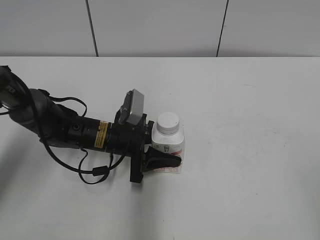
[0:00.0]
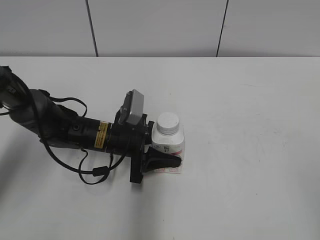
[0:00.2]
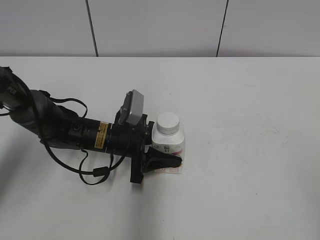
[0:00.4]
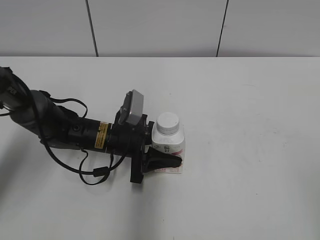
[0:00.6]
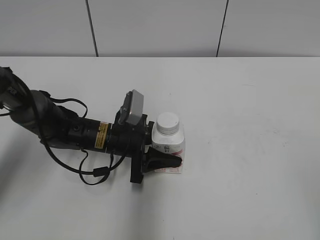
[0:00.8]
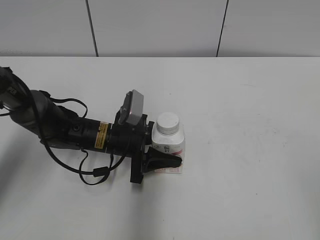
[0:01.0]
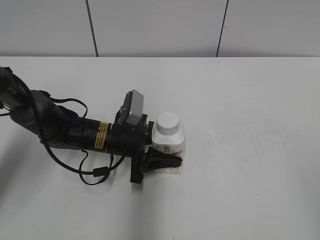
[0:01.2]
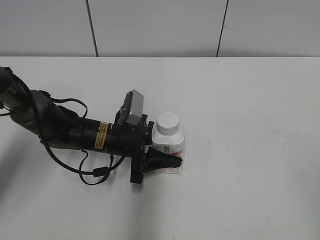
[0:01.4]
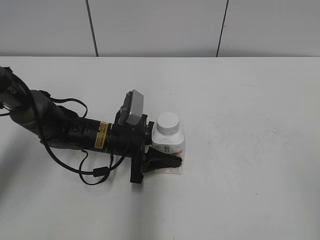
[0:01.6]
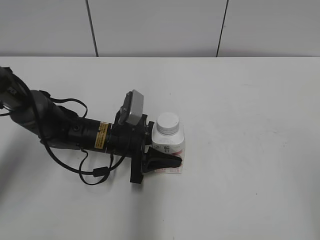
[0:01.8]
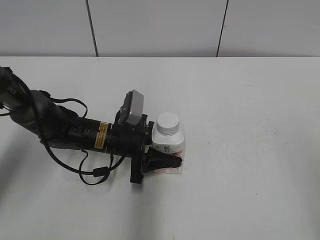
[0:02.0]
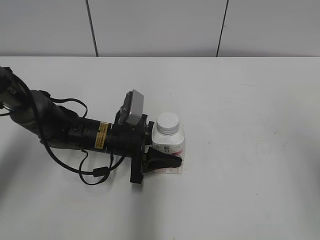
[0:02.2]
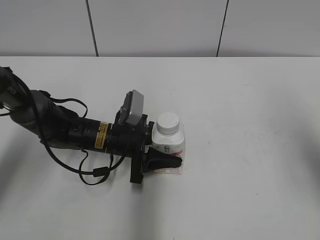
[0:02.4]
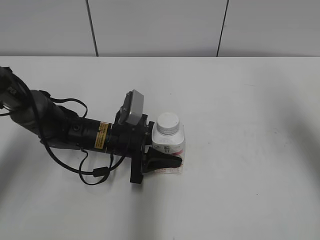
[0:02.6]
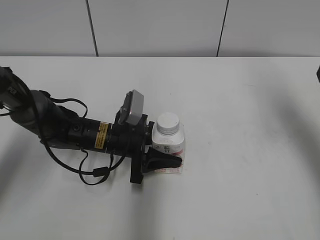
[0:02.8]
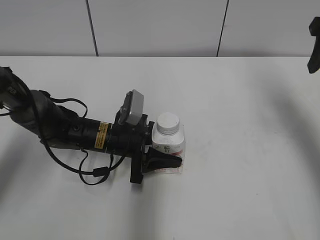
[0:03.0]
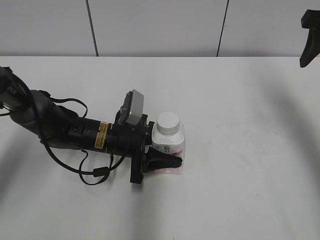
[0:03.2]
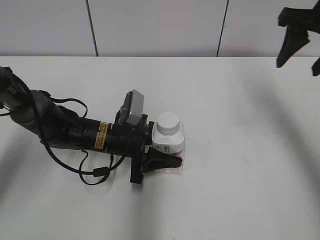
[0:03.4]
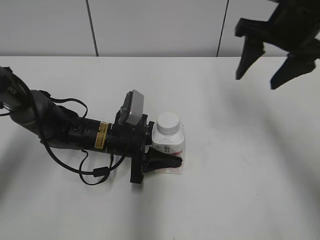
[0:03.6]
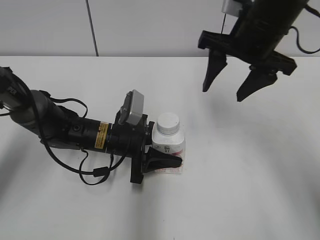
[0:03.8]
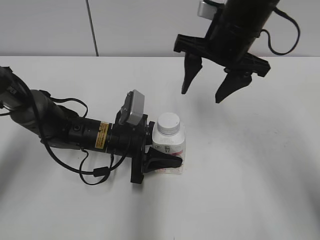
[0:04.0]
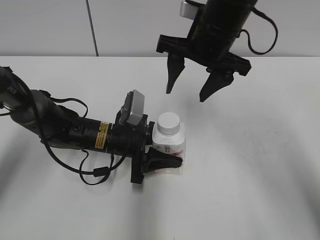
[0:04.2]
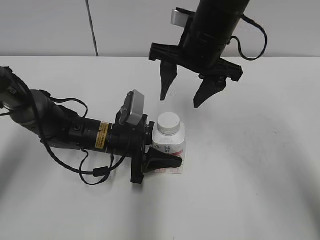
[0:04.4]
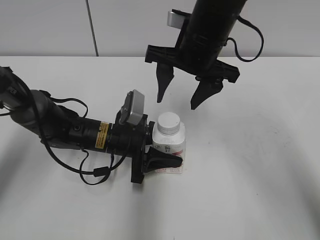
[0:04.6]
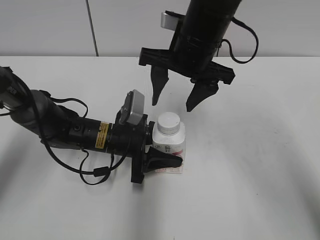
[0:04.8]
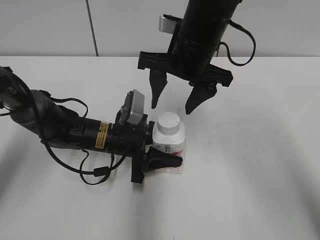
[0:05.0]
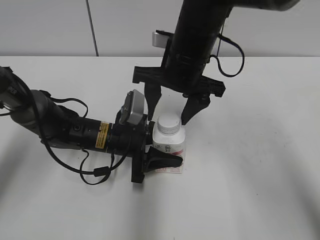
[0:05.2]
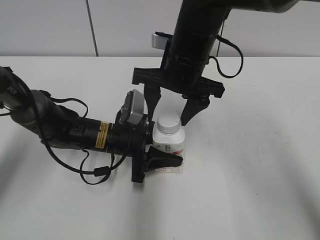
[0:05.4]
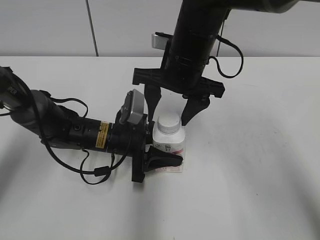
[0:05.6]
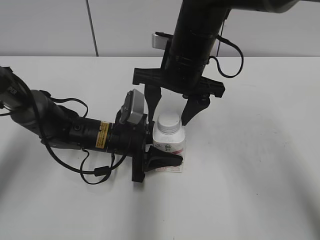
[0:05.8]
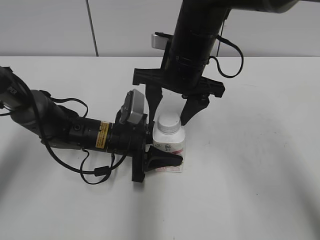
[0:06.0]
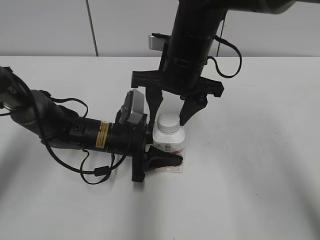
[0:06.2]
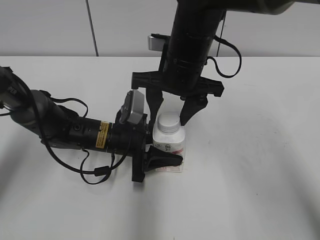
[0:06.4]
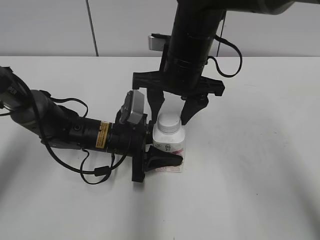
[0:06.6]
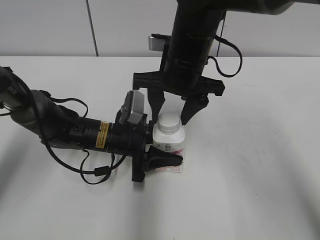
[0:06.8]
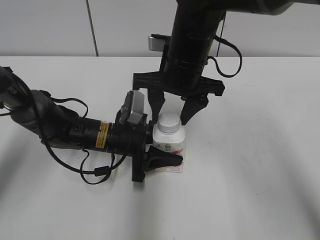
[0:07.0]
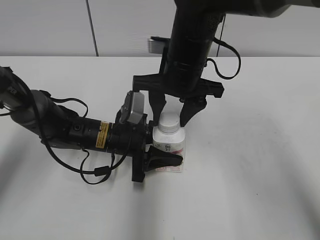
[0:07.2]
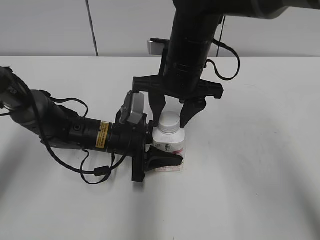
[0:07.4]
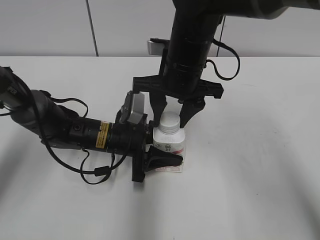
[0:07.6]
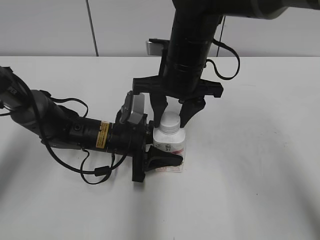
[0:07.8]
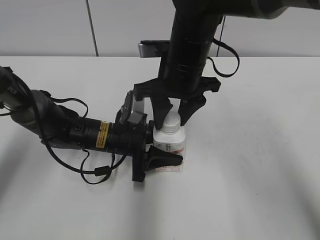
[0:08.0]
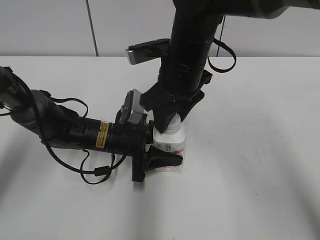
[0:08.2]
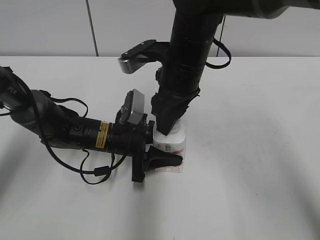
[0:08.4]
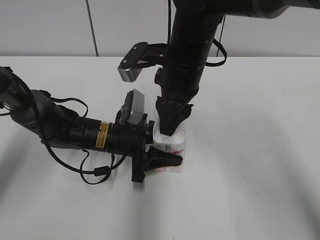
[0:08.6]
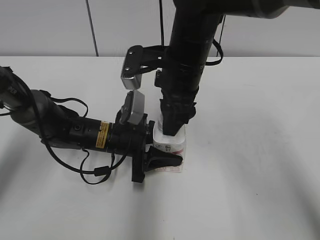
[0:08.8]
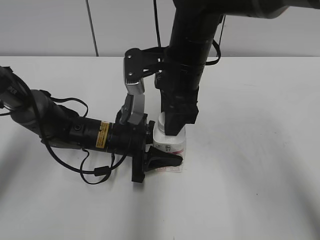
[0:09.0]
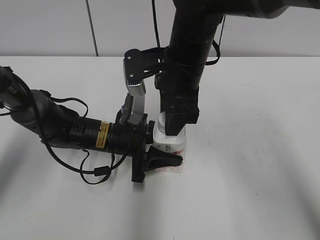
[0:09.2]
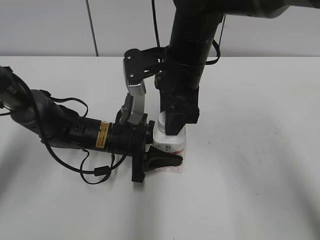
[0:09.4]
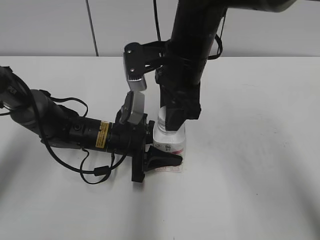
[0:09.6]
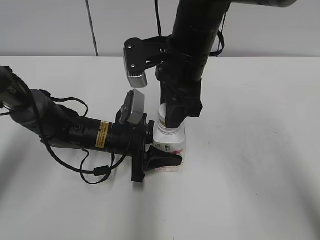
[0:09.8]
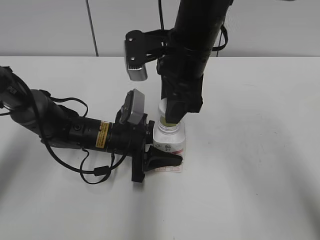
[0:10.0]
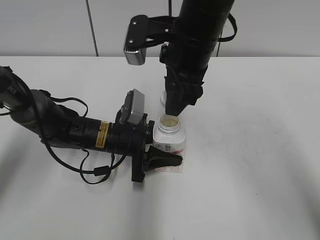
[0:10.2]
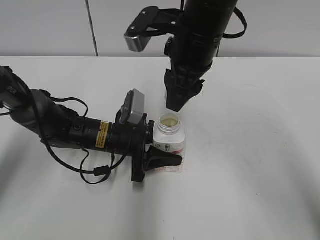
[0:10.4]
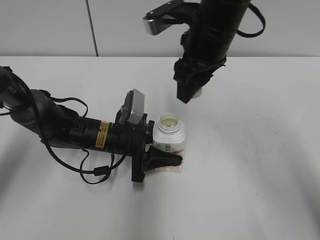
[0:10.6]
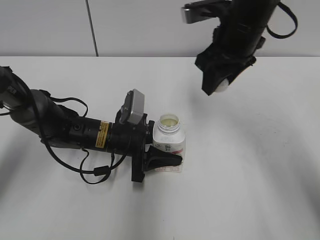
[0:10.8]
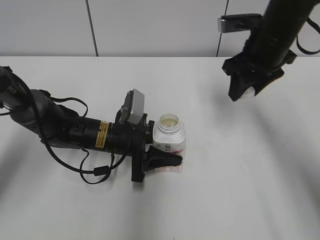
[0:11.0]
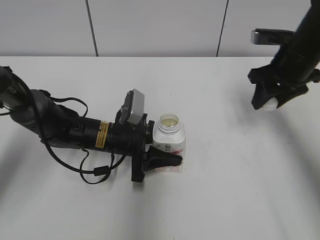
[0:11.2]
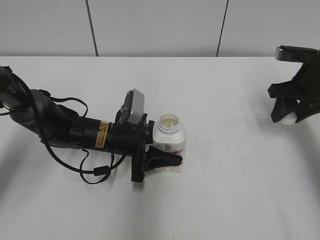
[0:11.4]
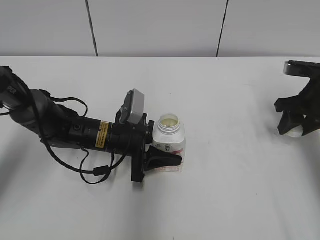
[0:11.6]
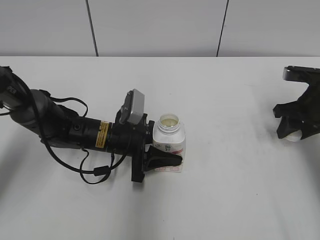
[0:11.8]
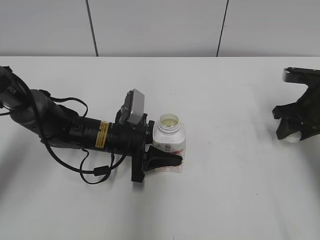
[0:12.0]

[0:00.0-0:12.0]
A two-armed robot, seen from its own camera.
Step, 0:00.4 to 0:10.2: Unscrew the bottle cap with the right gripper while holding the bottle with the left gripper.
0:00.0 to 0:01.6: Both grippers stay put.
0:01.6 to 0:03.0: The right gripper goes approximately 35 cm forward.
0:03.0 to 0:04.4: The right gripper travels to the left by approximately 20 cm.
0:04.4 to 0:06.0: The grippers move only a little.
0:06.0 to 0:07.6: The right gripper closes.
0:09.0 to 0:10.4: The right gripper travels upward by roughly 5 cm.
0:10.4 to 0:12.0: The right gripper goes about 30 cm to the right and downward.

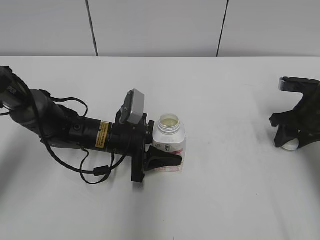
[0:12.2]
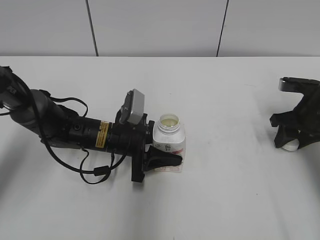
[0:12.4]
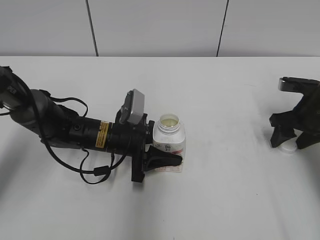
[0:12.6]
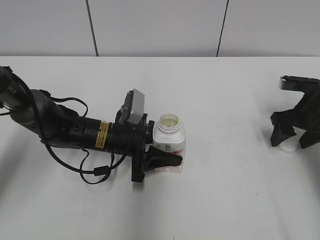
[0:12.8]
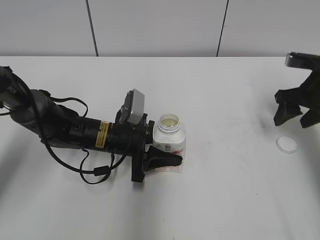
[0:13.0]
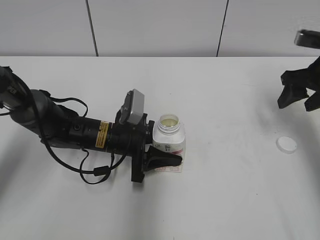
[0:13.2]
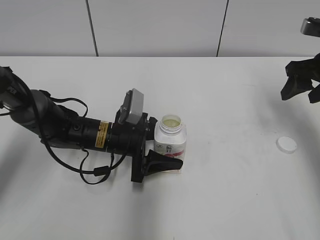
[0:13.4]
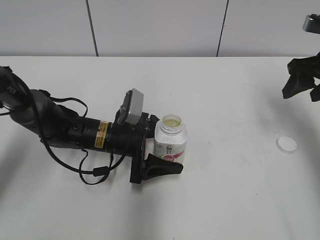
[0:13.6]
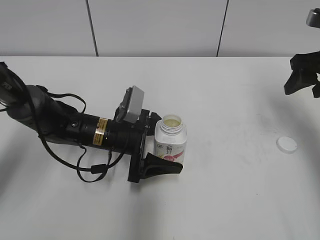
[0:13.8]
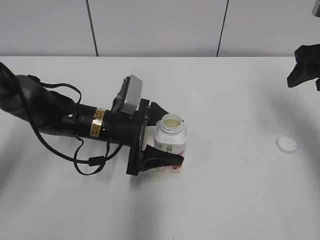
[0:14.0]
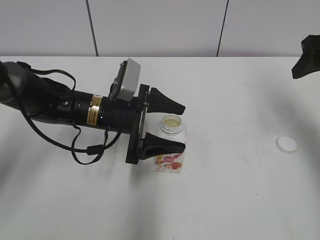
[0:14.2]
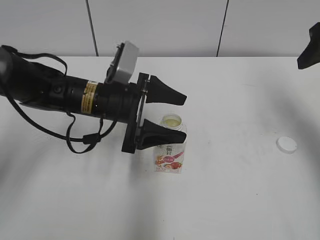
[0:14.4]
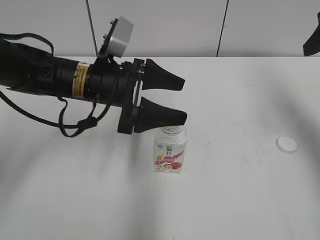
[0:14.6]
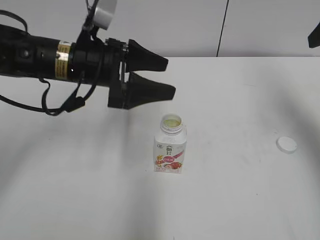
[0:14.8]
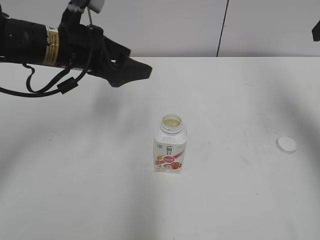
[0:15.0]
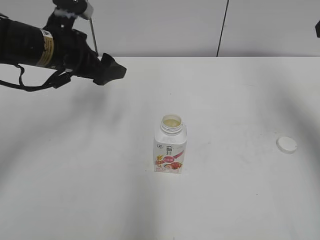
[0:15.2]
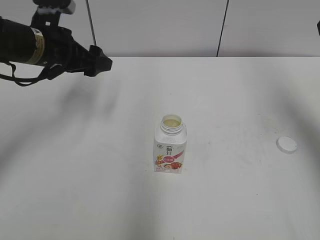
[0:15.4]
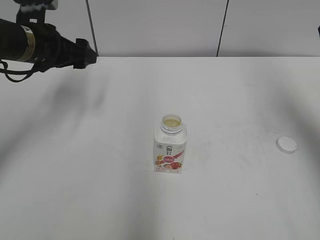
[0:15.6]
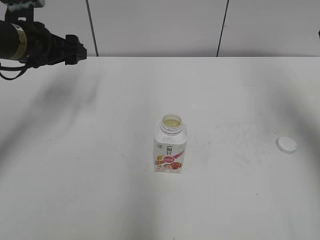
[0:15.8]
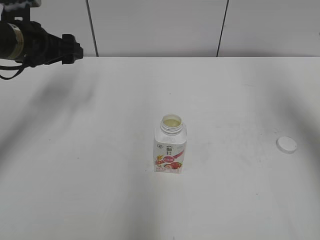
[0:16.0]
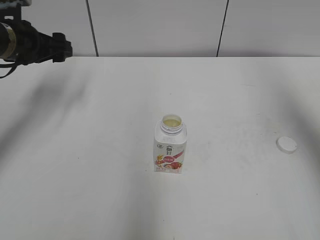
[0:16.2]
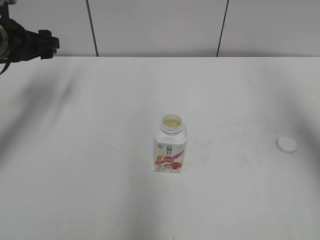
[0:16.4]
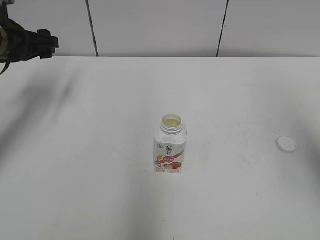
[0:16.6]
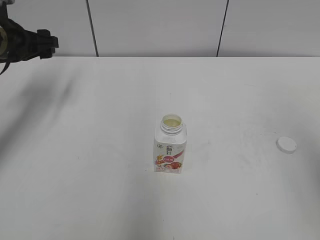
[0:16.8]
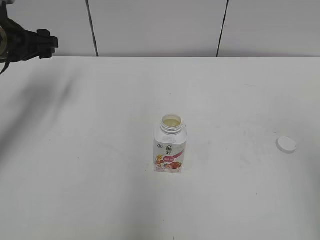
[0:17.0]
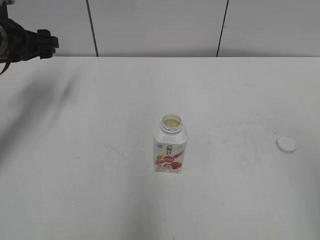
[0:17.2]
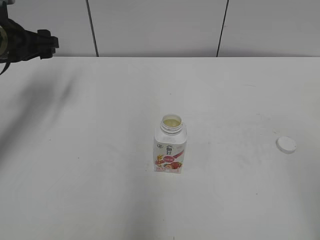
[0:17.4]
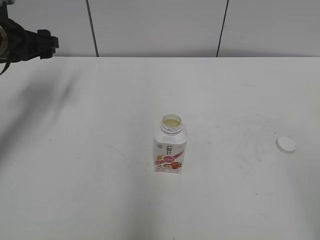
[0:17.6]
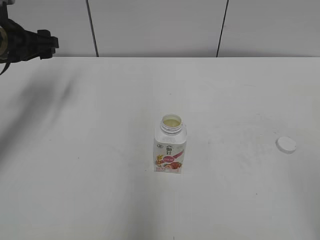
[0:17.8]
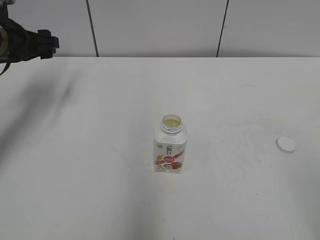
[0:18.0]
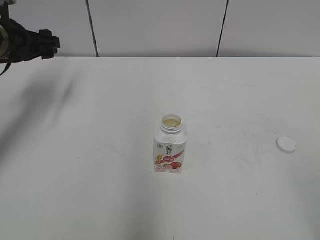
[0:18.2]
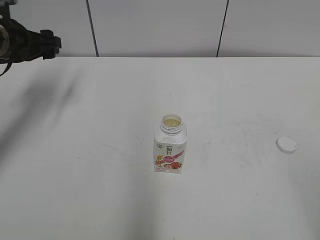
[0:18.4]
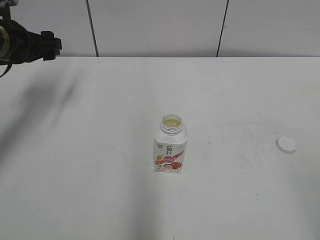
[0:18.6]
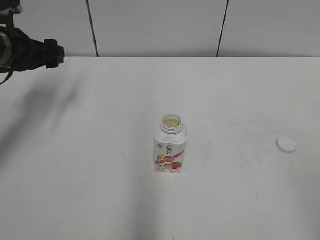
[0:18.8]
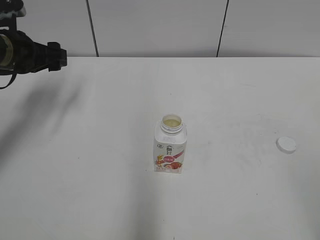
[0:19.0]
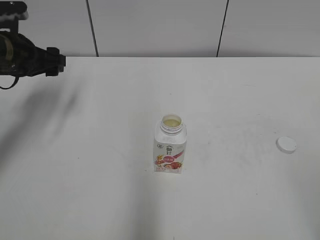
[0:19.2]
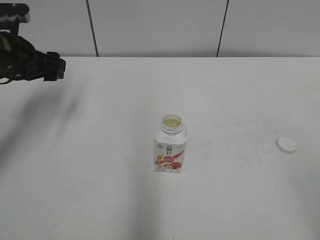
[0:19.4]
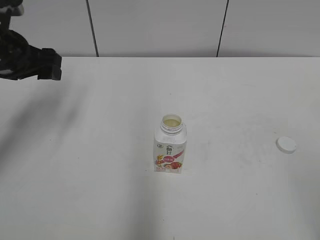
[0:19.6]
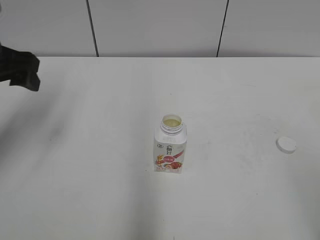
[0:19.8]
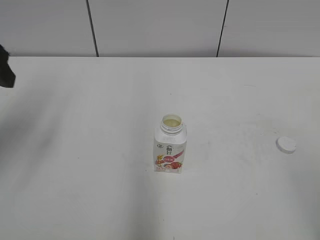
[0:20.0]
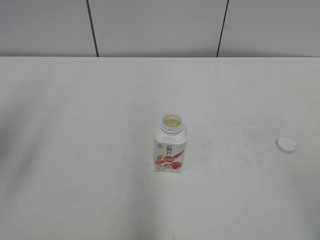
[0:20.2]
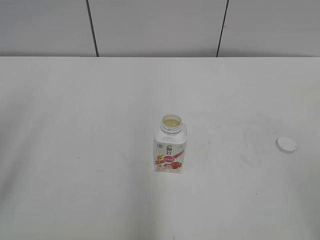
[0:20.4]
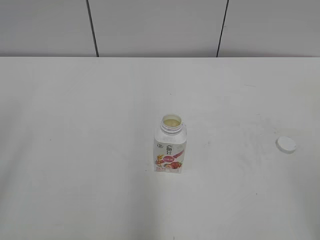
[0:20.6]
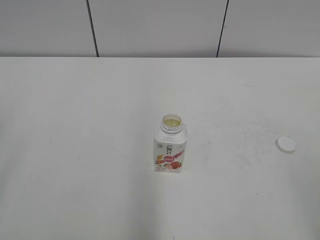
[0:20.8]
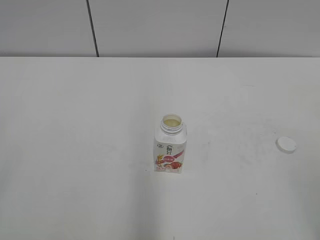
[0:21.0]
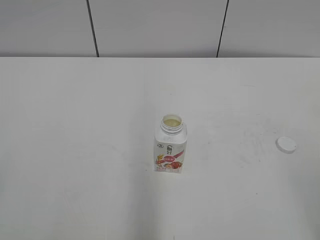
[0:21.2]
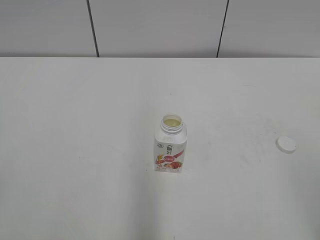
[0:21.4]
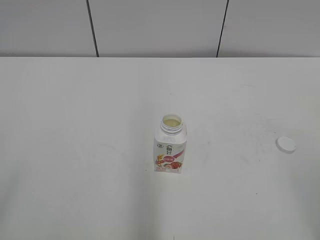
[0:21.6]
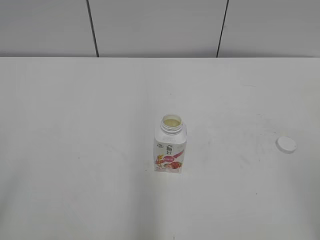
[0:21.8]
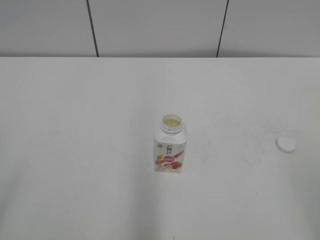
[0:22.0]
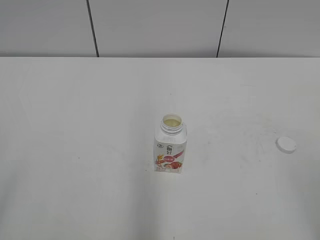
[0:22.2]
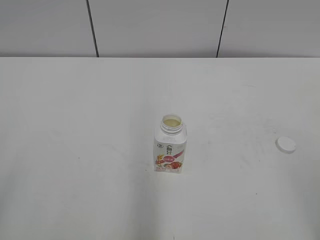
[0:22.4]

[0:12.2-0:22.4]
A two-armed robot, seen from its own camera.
Step, 0:13.0 to 0:14.0: Place the bottle on the table with the left gripper.
0:12.2 to 0:13.6: The left gripper opens up. Meanwhile the right gripper travels upward by approximately 10 cm, and opens its fingers.
0:13.6 to 0:15.2: The right gripper travels upward by some 15 cm. The left gripper shifts about 20 cm upward and to the left.
0:15.2 to 0:16.6: The right gripper travels backward by roughly 15 cm, while the left gripper shifts some 10 cm to the left.
0:16.6 to 0:18.0: The right gripper travels backward and downward by approximately 20 cm.
0:18.0 to 0:19.4: The grippers make only small movements.
0:19.4 to 0:21.0: The left gripper moves backward, about 35 cm.
